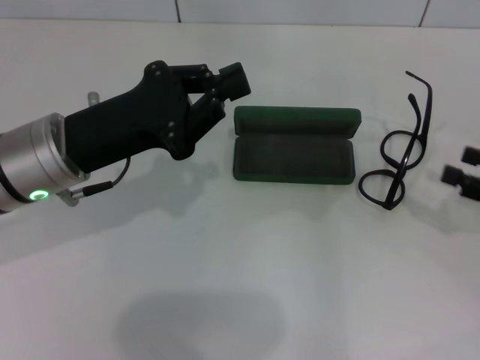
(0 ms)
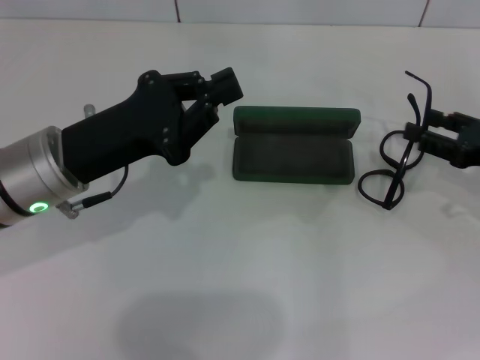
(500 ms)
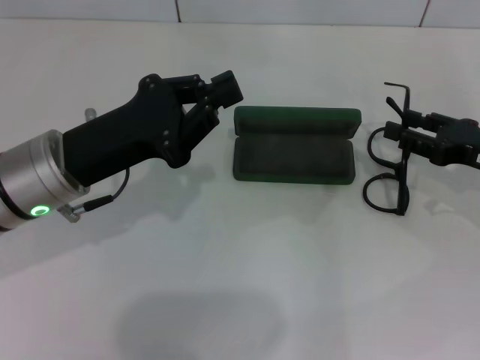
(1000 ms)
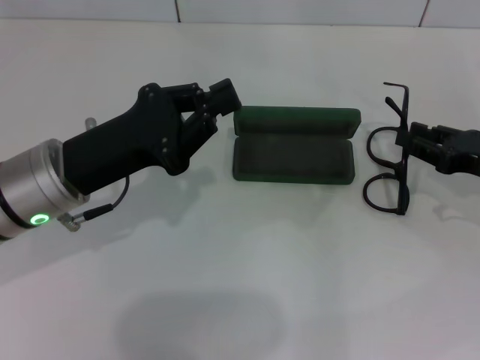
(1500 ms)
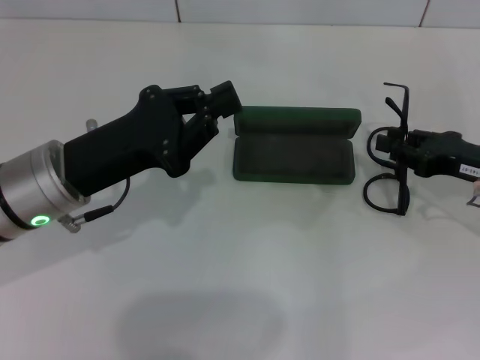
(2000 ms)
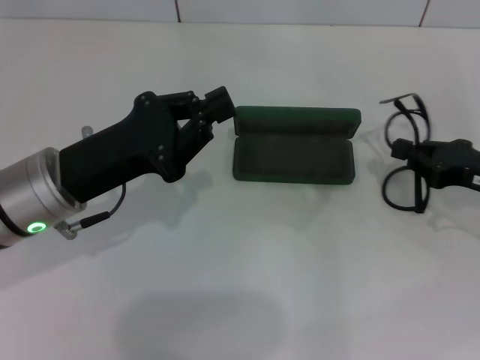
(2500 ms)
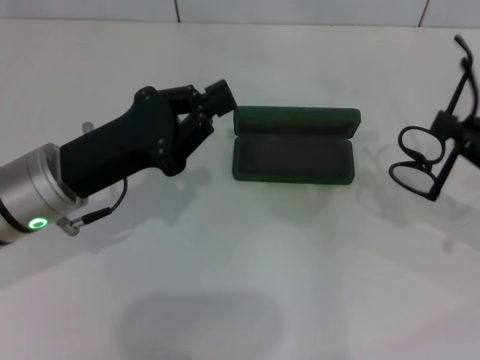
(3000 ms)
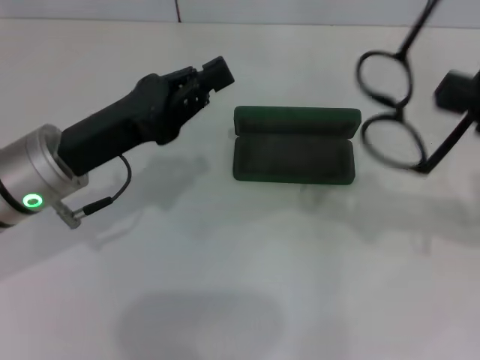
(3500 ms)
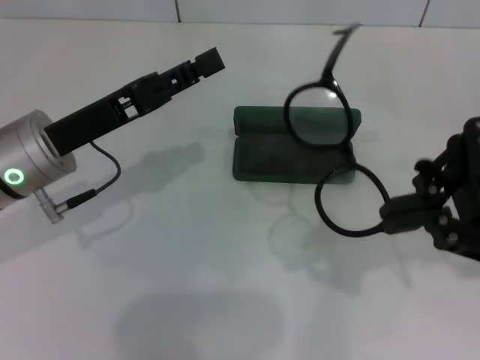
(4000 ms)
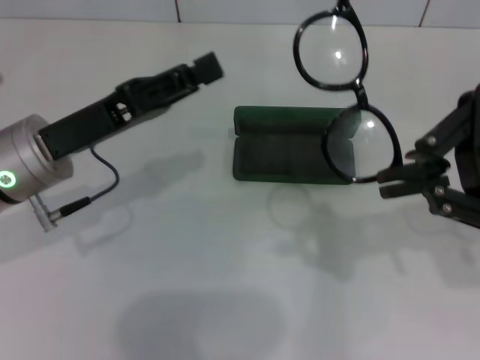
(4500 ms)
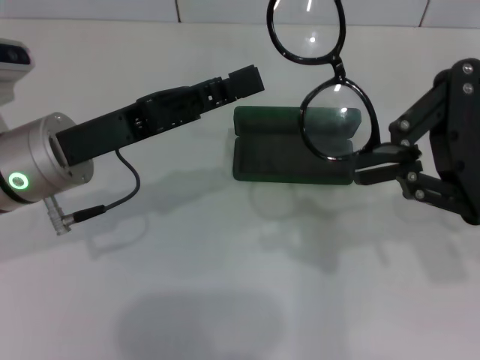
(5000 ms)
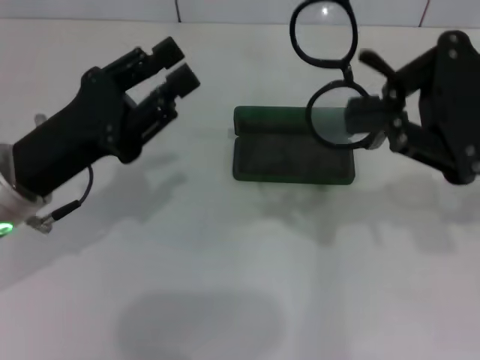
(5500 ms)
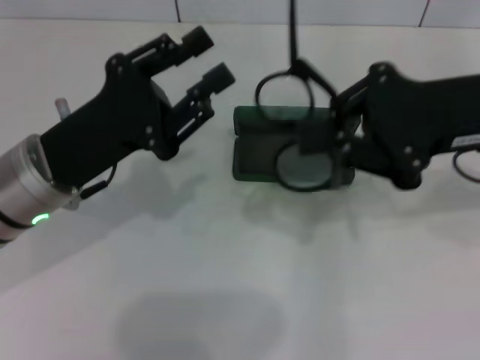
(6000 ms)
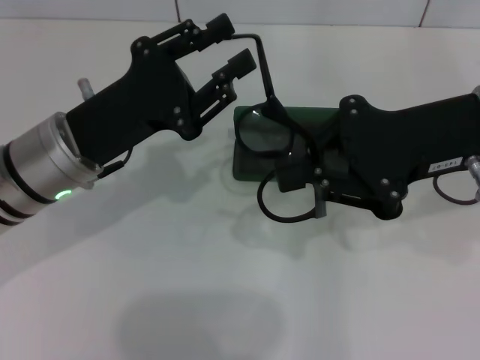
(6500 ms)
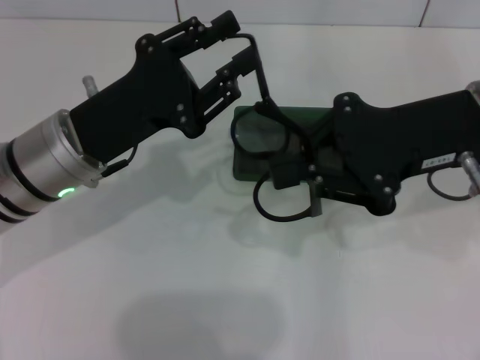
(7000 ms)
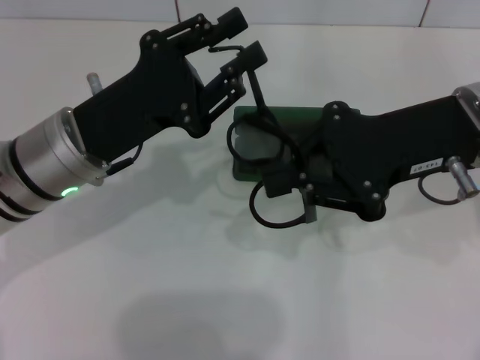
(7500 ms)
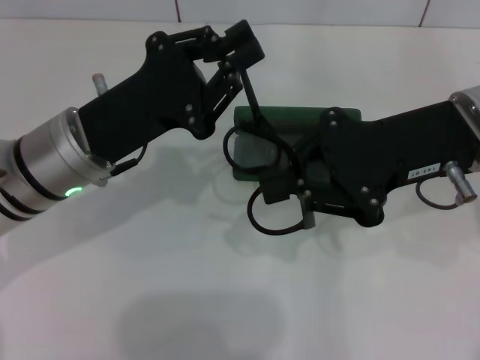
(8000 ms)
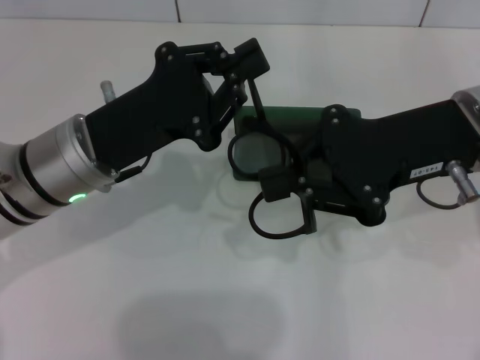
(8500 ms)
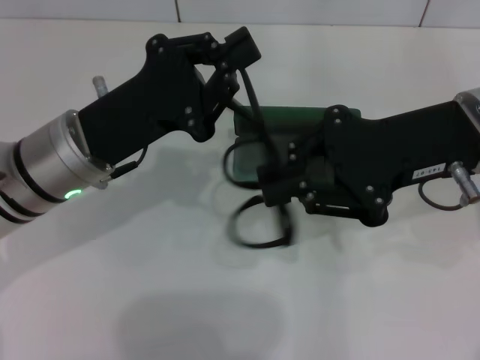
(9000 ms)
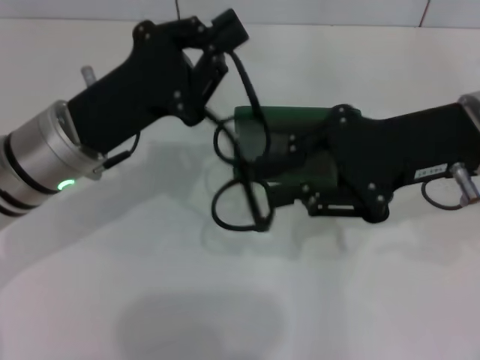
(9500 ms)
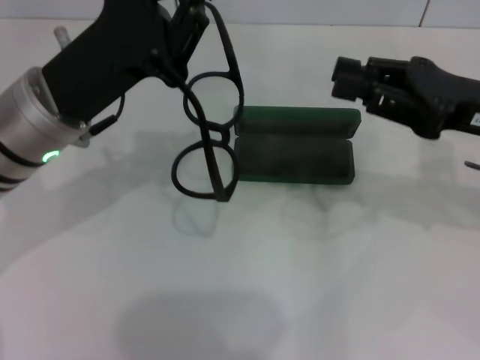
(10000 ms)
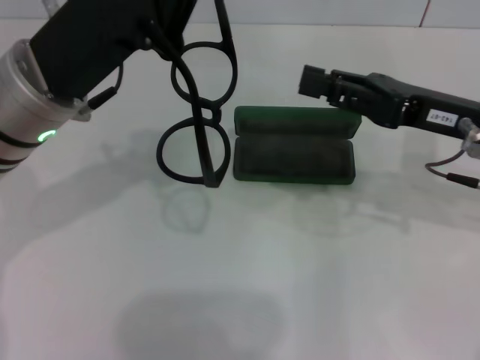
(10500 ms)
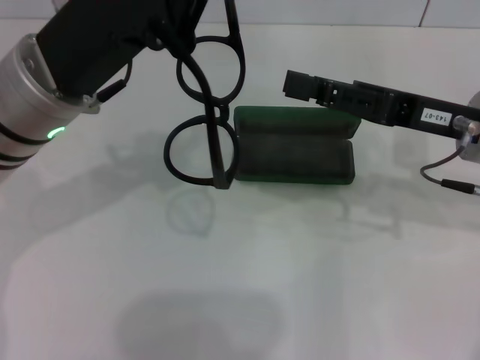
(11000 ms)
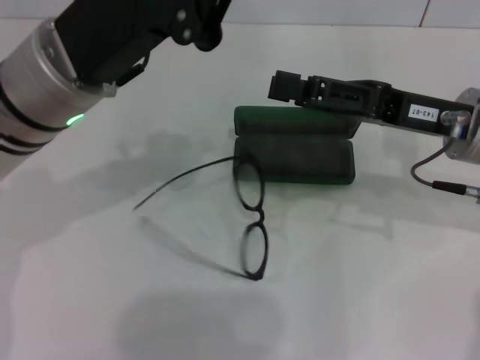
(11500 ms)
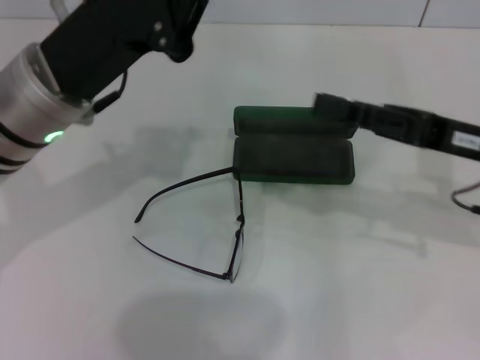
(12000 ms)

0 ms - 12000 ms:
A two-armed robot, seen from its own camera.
0 ms - 2000 ms: The right gripper goes approximately 10 cm to the left and forward, and closes.
2000 ms - 4000 ms: The right gripper travels upward and backward by roughly 15 cm, and closes up.
4000 ms - 6000 ms: The right gripper shifts by some 5 cm.
8000 ms - 10000 ms: The right gripper shifts roughly 5 cm to the right, while the left gripper closes.

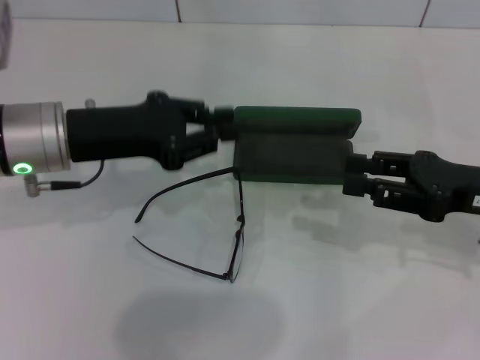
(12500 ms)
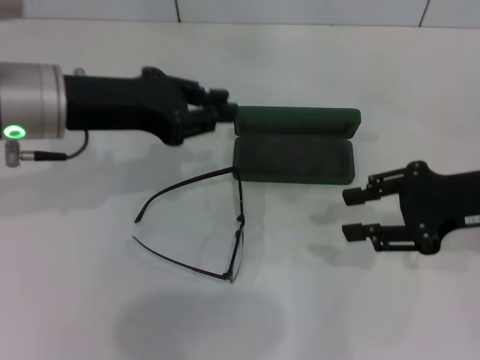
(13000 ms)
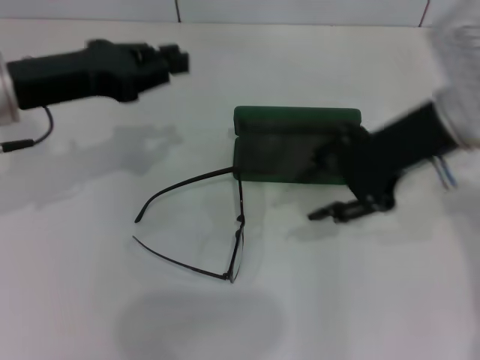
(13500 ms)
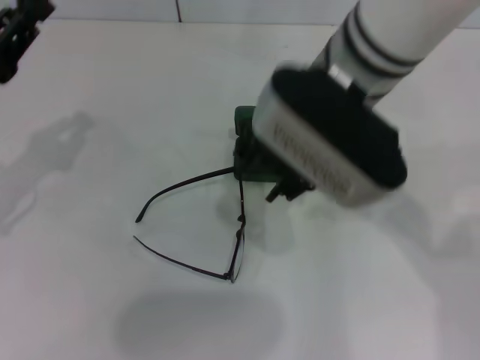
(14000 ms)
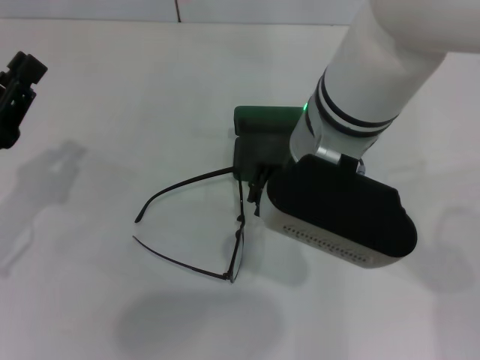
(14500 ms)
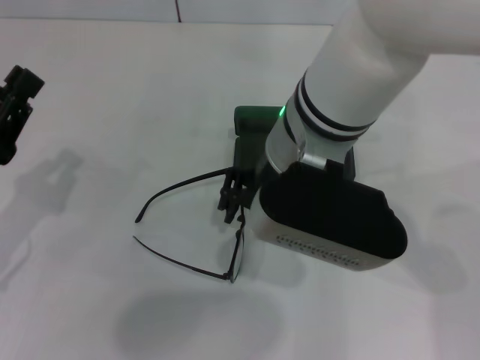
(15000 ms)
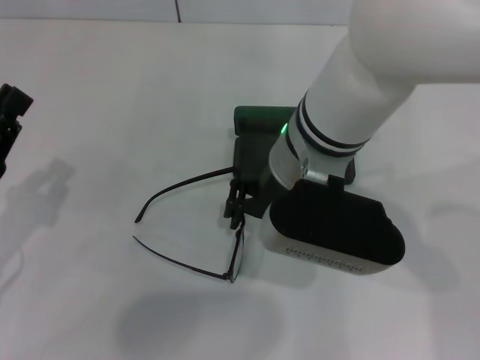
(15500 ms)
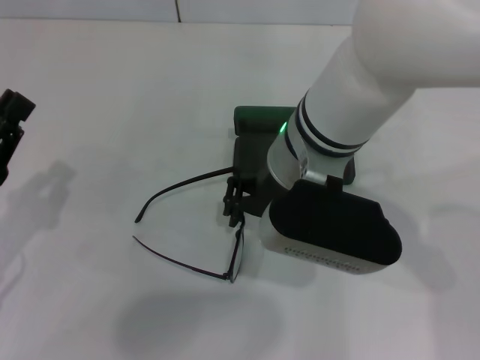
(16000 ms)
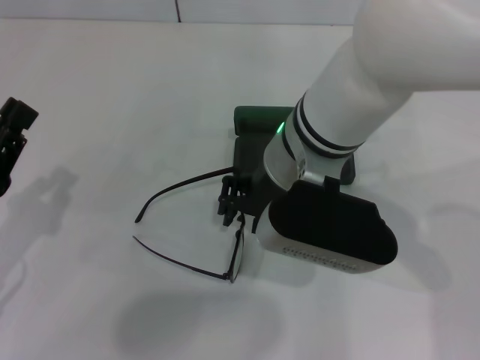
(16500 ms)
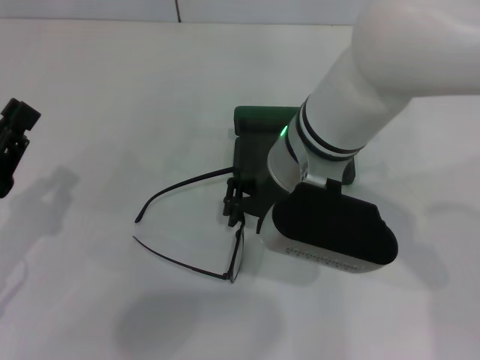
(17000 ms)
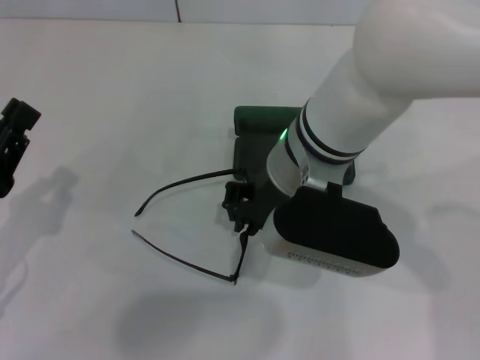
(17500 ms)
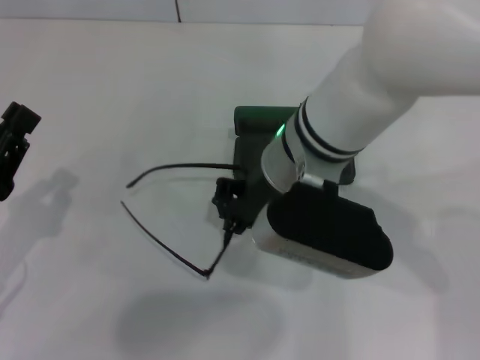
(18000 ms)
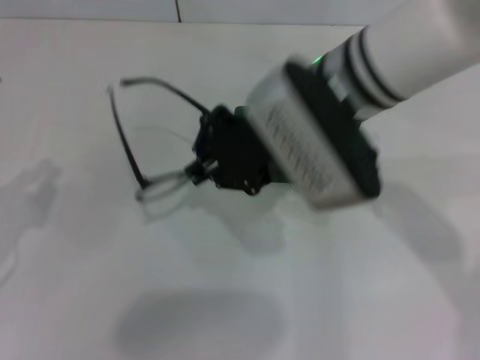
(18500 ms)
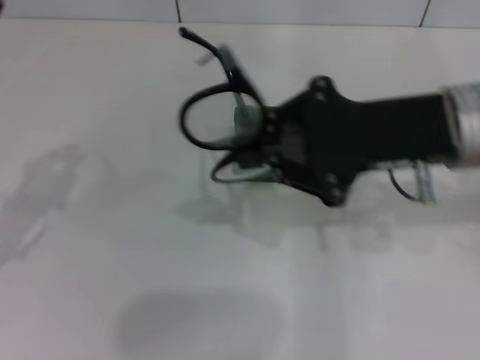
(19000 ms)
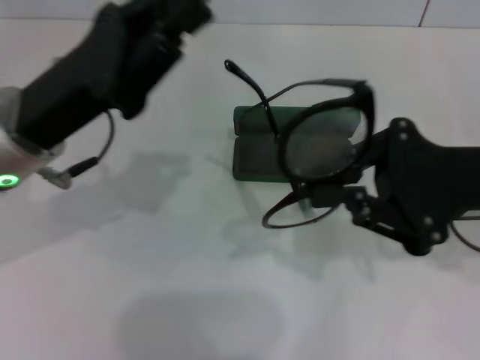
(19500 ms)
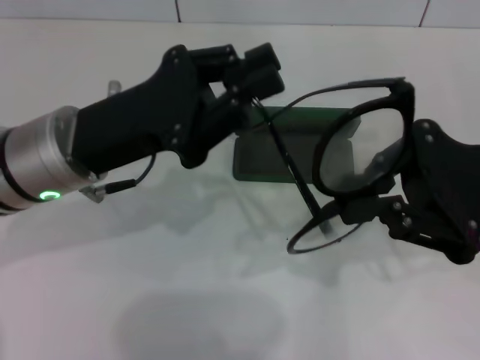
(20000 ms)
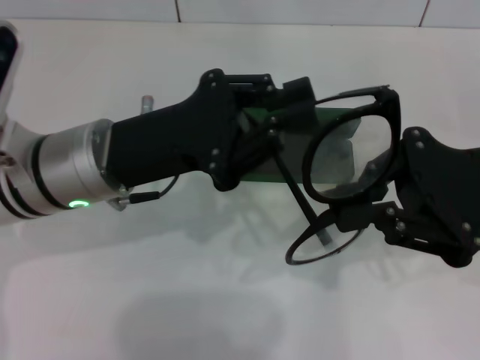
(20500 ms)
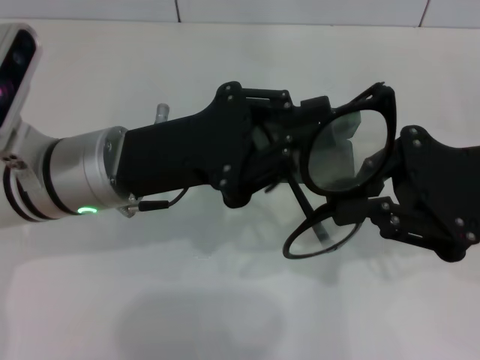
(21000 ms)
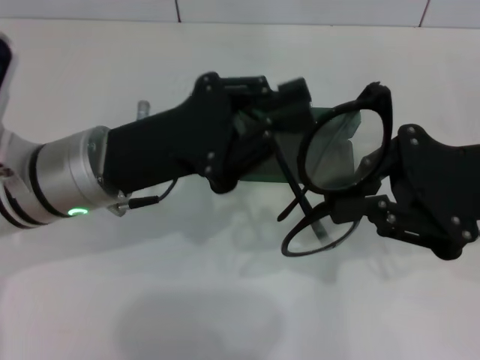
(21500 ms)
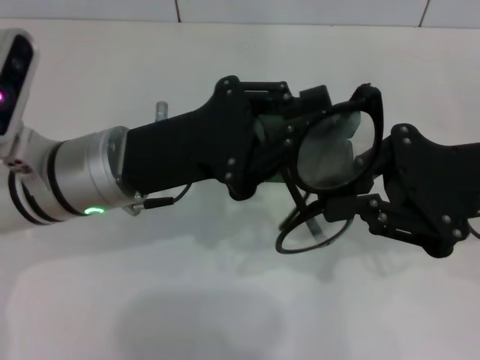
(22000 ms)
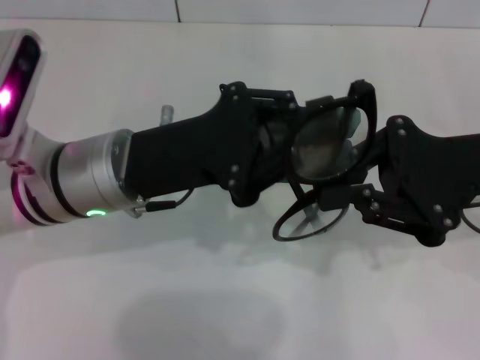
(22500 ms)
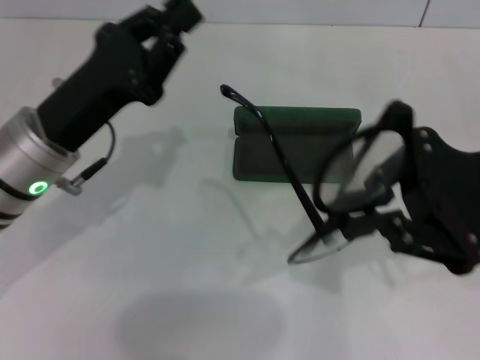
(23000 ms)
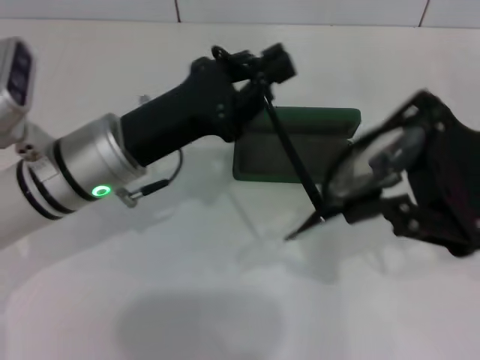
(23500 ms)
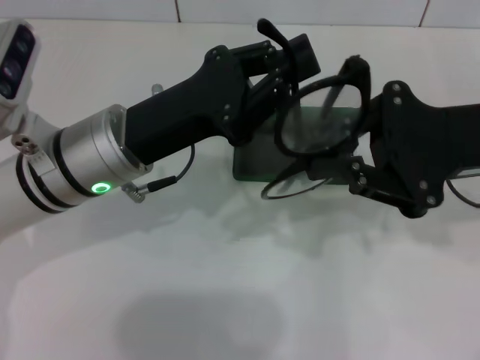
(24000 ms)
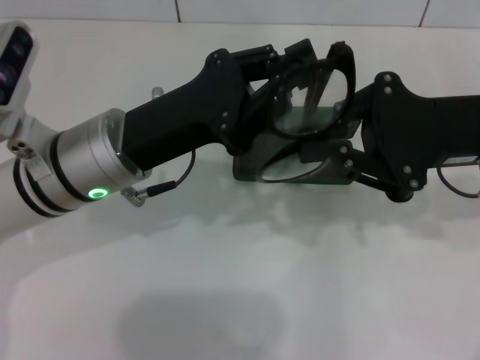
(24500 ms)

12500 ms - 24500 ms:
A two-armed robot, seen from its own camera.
Step, 12500 ms - 17500 ms: Grab the eyeglass frame with your right hand.
12500 ms - 14500 ms: The right gripper moves to the left, about 25 cm. The left gripper shifts approximately 15 cm backward, to the left and downward.
14500 ms - 16500 ms: The grippers make only small movements.
16500 ms - 18500 ms: The right gripper shifts by about 5 cm.
18500 ms - 20500 ms: The left gripper is displaced to the right and forward by about 15 cm, while the right gripper shifts about 20 cm to the right.

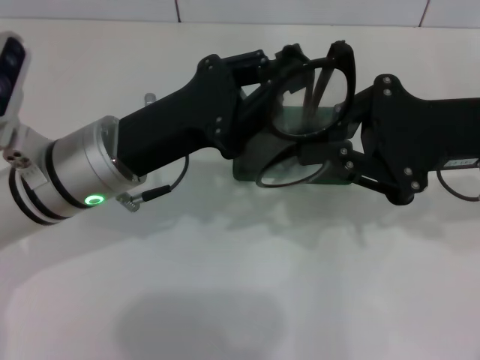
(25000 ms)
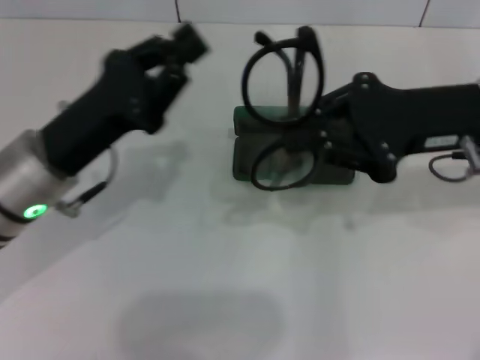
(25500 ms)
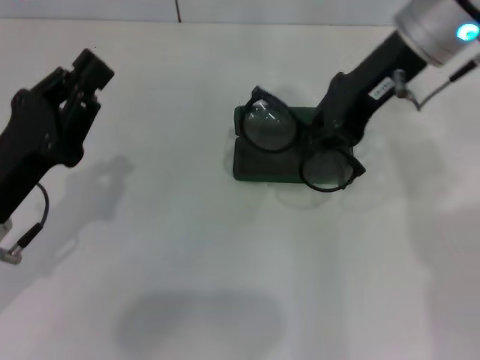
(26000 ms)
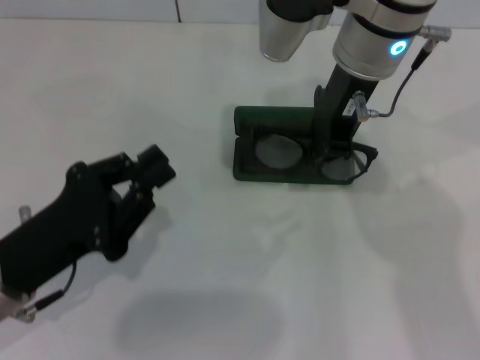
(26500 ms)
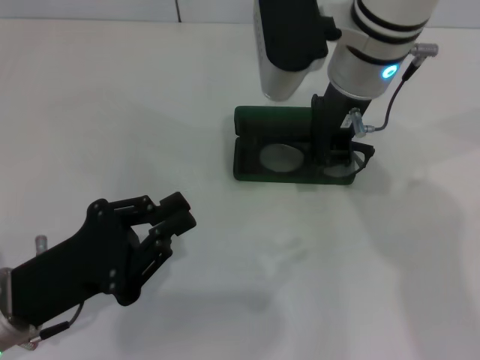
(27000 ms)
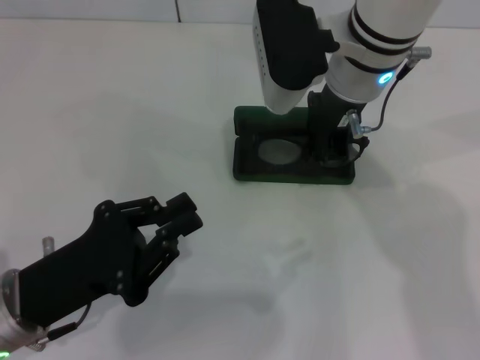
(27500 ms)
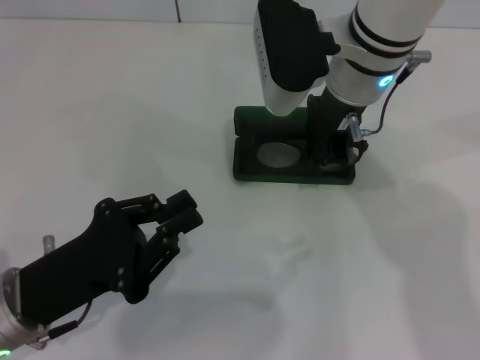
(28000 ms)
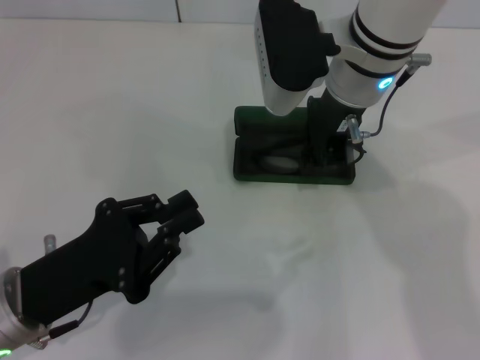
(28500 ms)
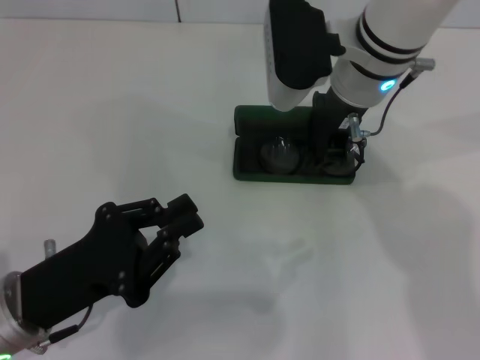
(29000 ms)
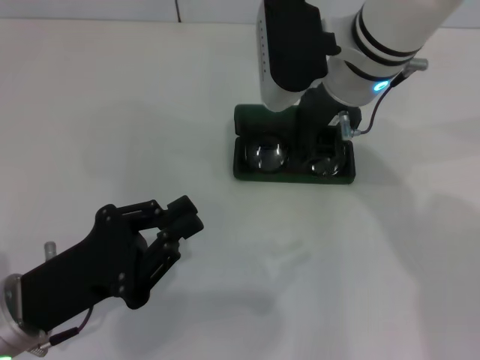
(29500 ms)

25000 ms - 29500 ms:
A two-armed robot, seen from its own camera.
25000 ms - 27000 ms: The left gripper travels backward, to the left and downward by roughly 15 cm, while the right gripper travels to the left and forward by approximately 15 cm.
27000 ms - 29500 ms: The grippers make only small movements.
